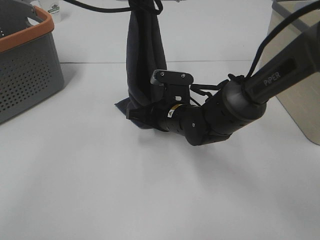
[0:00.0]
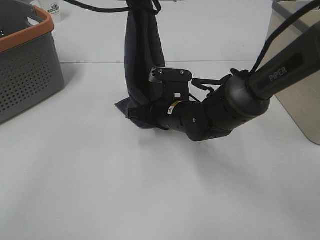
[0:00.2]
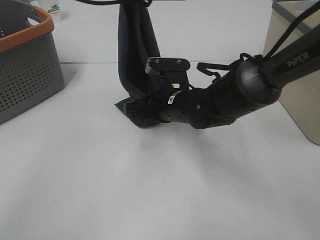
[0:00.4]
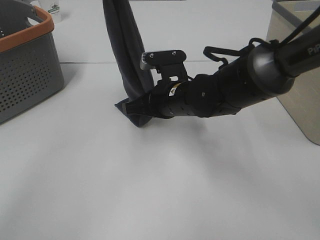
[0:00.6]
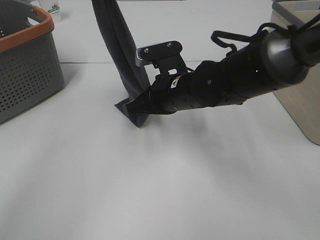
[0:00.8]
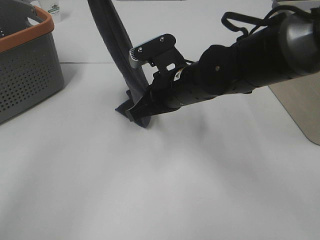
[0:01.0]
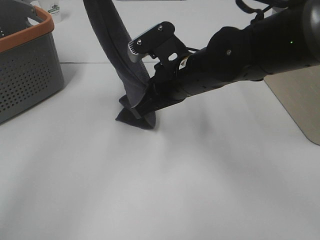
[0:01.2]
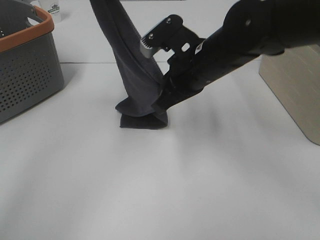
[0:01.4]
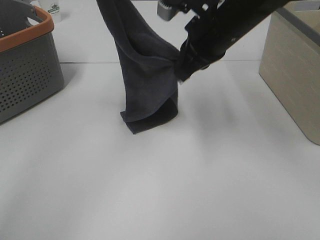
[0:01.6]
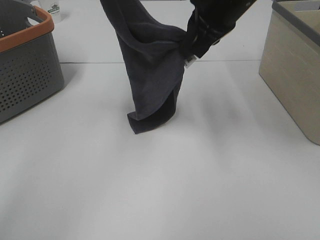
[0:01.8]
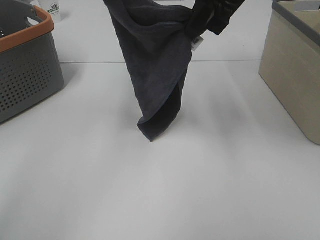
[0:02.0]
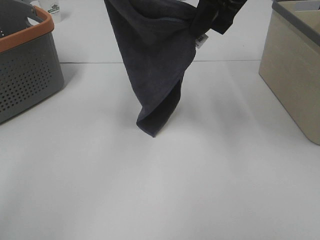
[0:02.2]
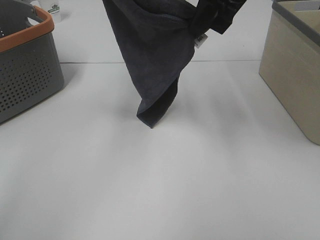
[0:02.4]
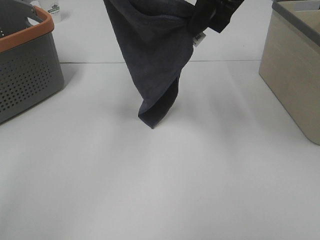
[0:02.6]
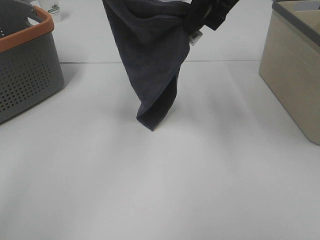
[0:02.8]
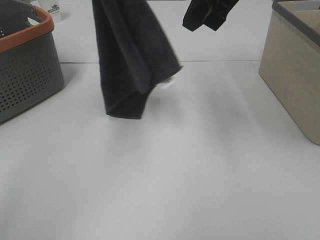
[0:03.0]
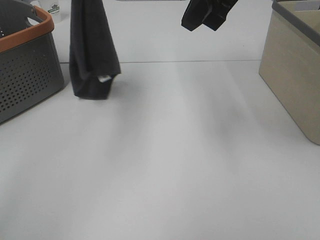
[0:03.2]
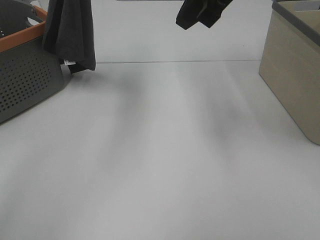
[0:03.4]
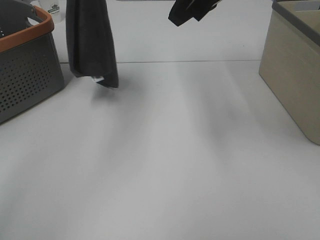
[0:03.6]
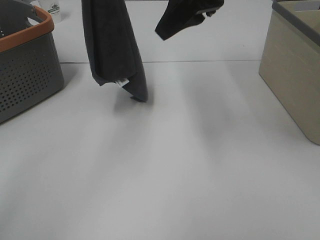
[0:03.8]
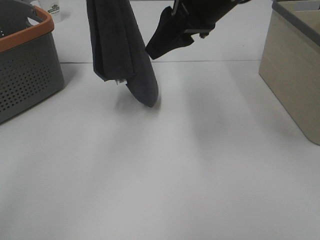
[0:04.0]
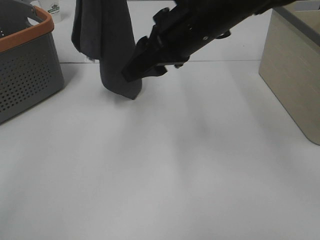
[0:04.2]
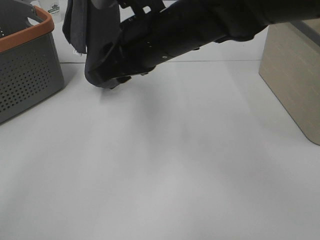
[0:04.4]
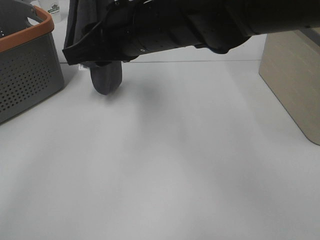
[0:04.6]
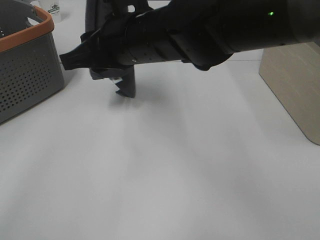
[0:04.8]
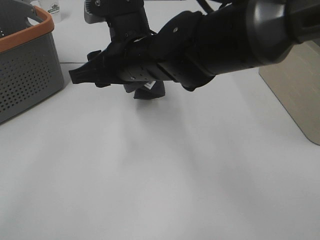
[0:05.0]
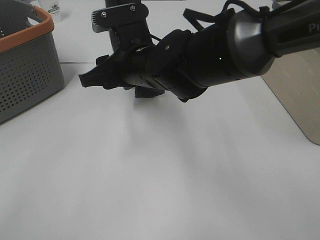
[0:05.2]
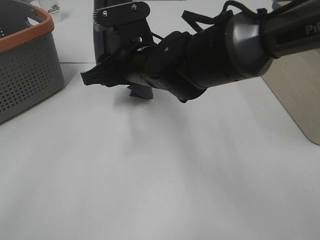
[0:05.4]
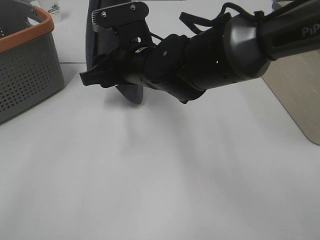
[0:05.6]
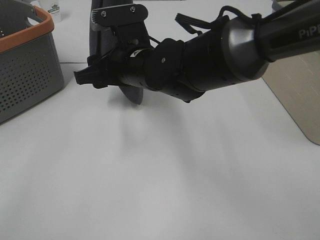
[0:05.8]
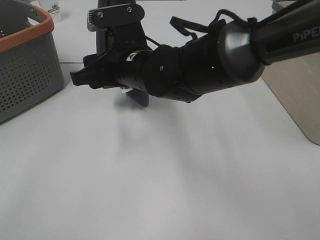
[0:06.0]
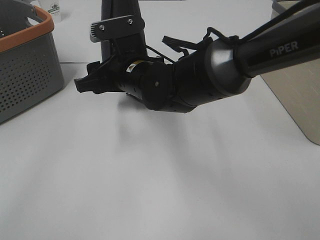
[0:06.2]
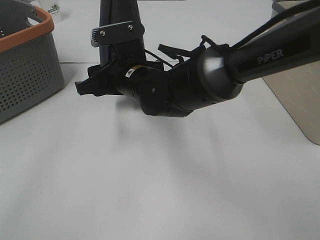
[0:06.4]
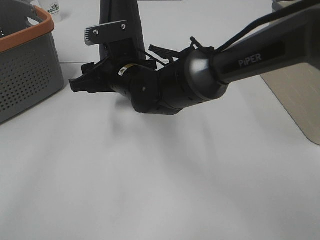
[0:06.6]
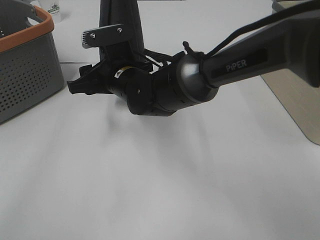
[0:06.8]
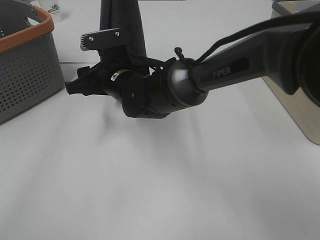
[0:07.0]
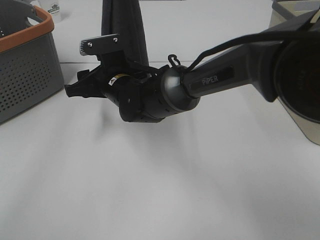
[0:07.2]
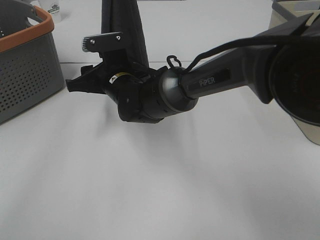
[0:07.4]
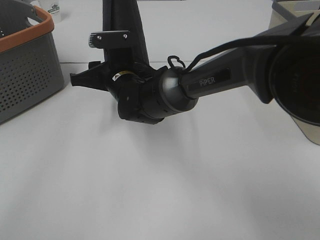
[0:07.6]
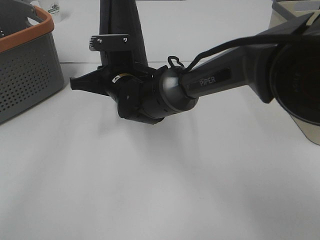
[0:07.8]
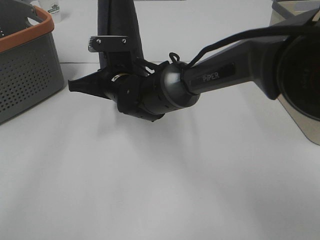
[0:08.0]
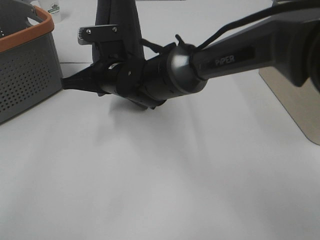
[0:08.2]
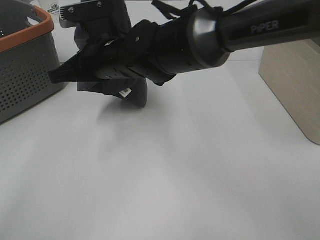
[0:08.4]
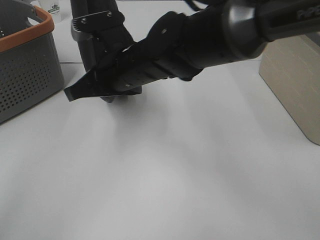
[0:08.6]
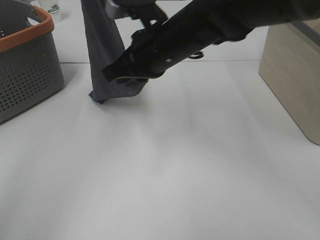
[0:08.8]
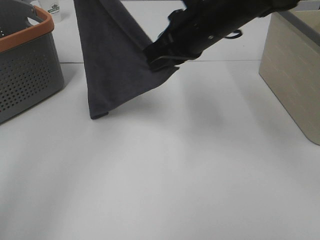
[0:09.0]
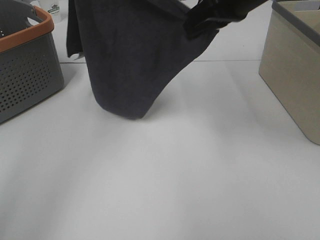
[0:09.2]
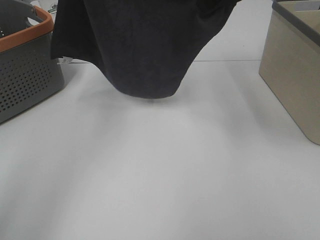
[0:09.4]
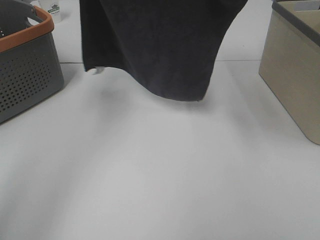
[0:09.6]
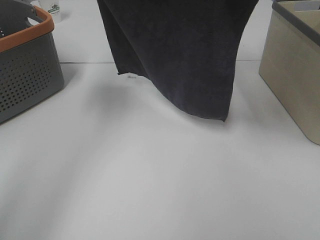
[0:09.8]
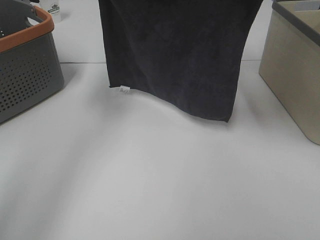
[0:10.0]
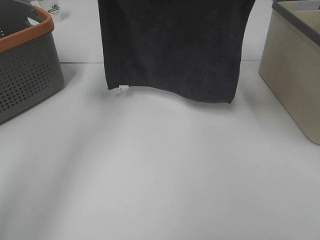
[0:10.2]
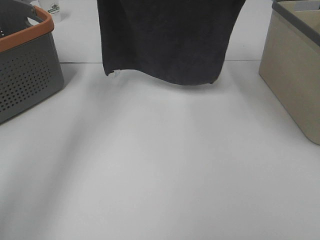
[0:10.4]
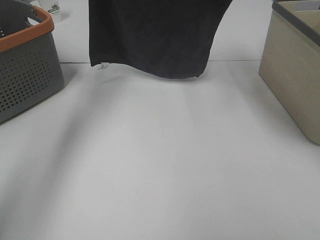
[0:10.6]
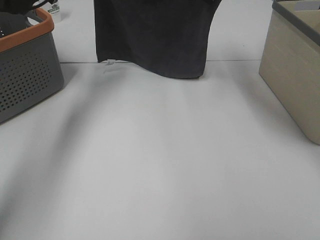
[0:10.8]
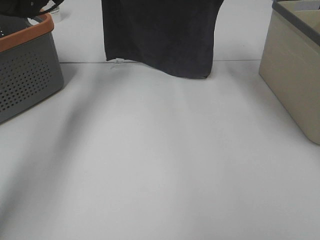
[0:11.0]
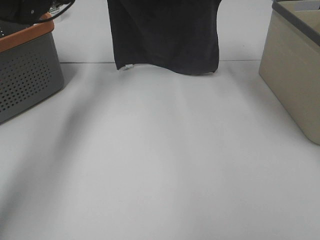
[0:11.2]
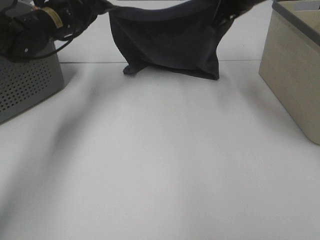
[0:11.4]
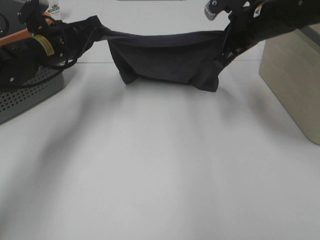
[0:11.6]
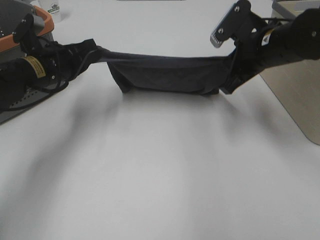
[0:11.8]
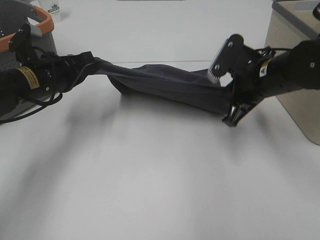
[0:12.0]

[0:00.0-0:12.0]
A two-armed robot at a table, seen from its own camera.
Task of the whole recording: Remove the towel and place it.
Step, 0:00.0 to 0:04.6: Right hand: grab a corner of the grey towel and straighten it.
Step, 0:04.8 to 0:07.4: Left hand: spread the grey towel flat on the table.
Step, 0:04.8 to 0:07.4: Right hand: spread the grey towel flat on the table.
0:00.0 to 0:01.6: The right gripper travels upward by some 20 cm. The left gripper is displaced to the left by about 10 cm.
0:01.6 to 0:03.0: The right gripper goes some 10 cm upward, while the left gripper heads upward, covering roughly 5 cm.
0:03.0 to 0:04.4: The right gripper goes about 15 cm to the left, downward and backward, and opens up.
0:04.4 to 0:06.0: The left gripper changes place by roughly 5 cm; the right gripper heads downward, covering some 5 cm.
0:06.0 to 0:07.6: The right gripper heads downward, covering approximately 5 cm.
0:07.6 to 0:09.0: The right gripper shifts roughly 20 cm to the right and upward, and closes up, while the left gripper is displaced to the left by roughly 10 cm.
0:09.0 to 0:10.4: The right gripper is displaced upward, to the right and forward by roughly 15 cm, while the left gripper goes some 10 cm downward.
0:10.4 to 0:12.0: Both grippers travel together downward and backward, about 20 cm.

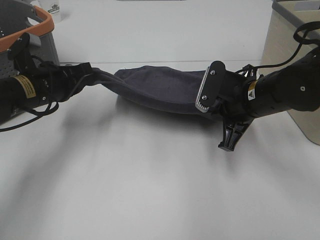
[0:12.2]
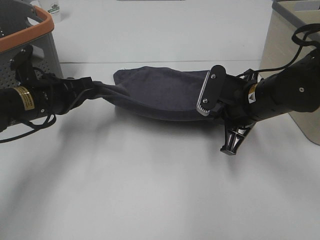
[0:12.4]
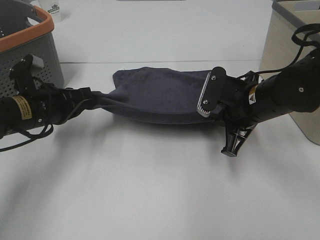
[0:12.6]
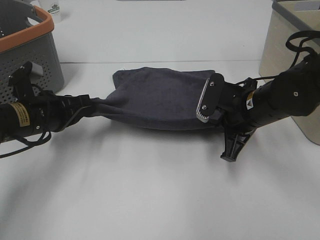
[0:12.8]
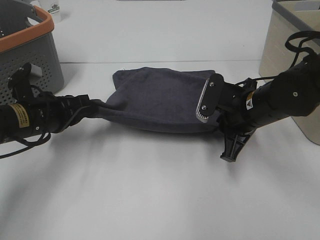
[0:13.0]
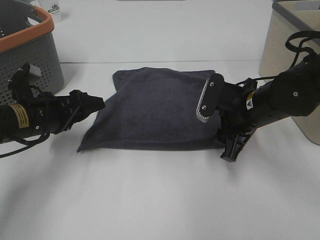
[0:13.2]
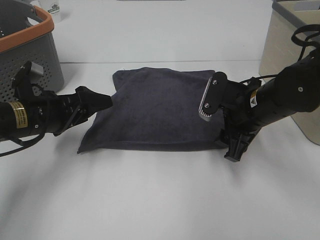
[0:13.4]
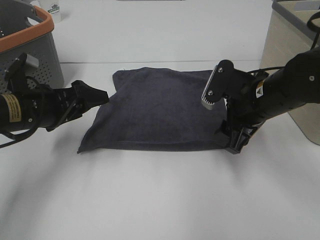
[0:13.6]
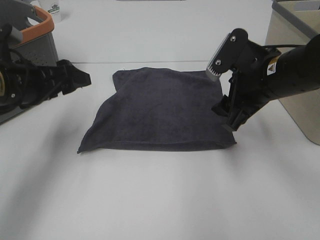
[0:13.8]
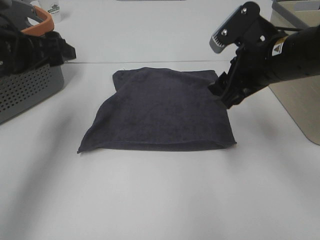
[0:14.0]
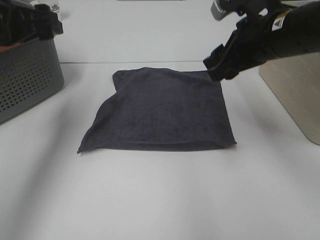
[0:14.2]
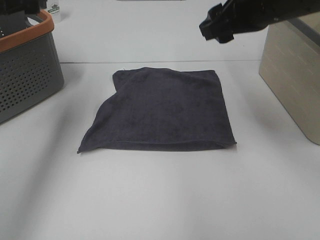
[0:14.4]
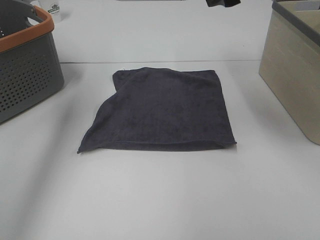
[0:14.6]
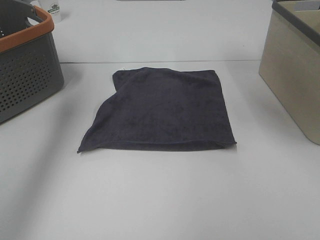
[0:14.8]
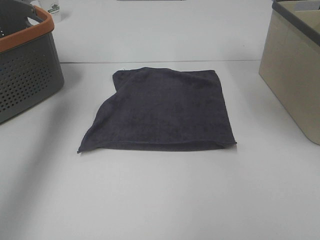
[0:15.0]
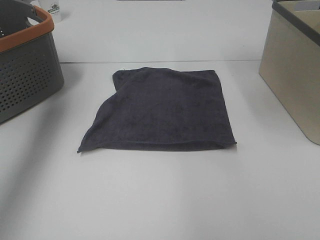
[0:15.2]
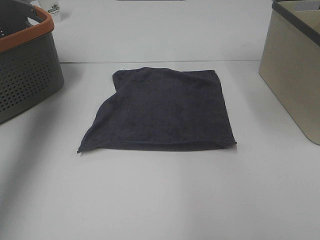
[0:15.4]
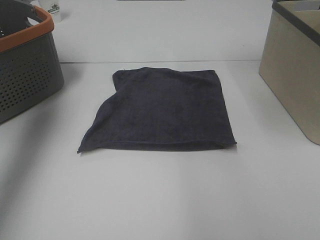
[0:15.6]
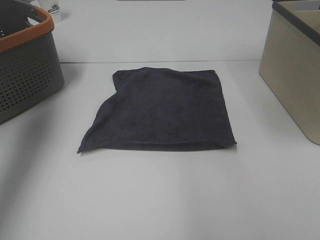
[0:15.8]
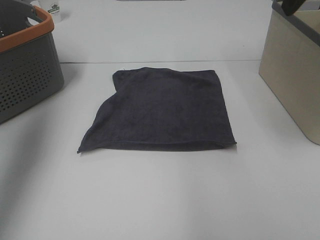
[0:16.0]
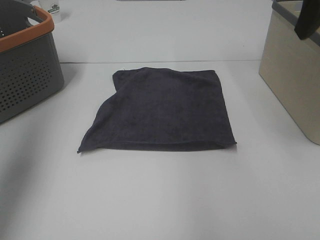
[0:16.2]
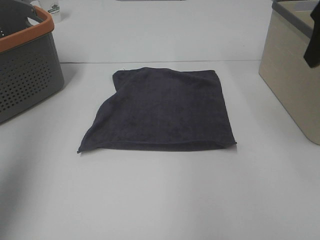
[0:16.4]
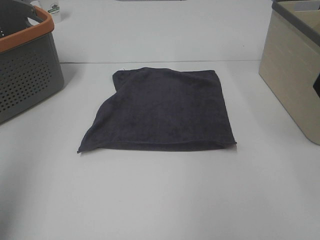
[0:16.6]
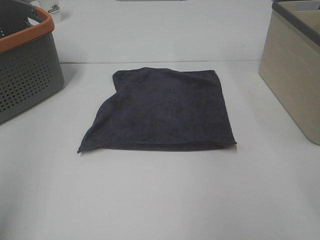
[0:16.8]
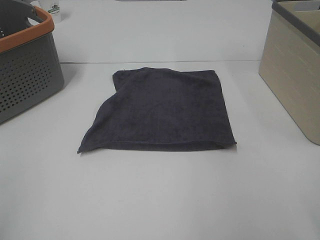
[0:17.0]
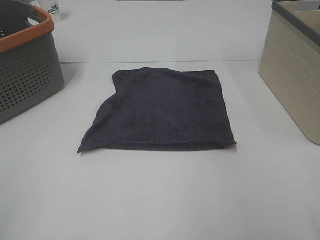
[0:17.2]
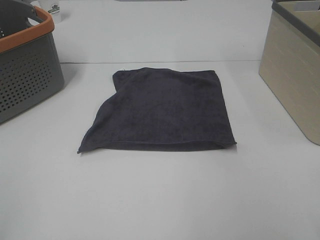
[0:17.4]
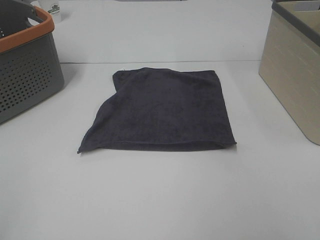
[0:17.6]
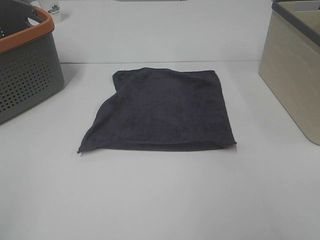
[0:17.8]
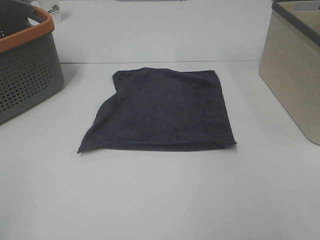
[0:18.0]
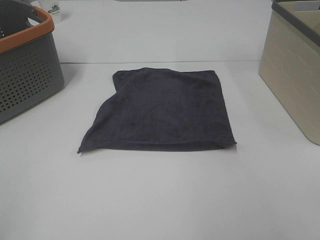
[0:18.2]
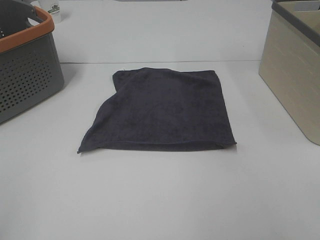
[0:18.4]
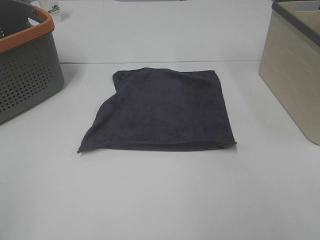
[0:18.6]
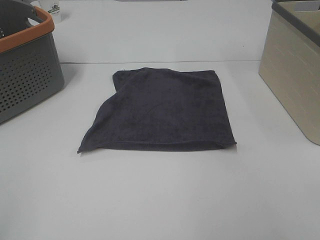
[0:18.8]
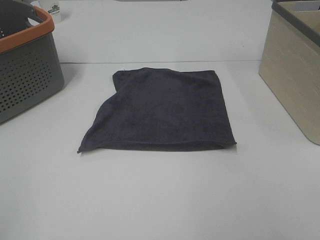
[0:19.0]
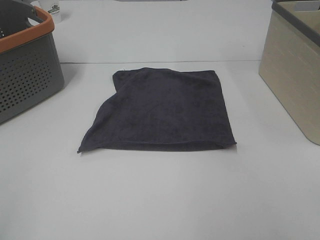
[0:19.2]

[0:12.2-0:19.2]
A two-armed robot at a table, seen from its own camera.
Task of the whole recording: Remove the towel and place it.
0:12.2 to 0:13.6: The left gripper opens; the right gripper opens its fingers.
0:13.6 to 0:15.0: The two grippers go about 20 cm upward.
0:15.0 to 0:16.4: The left gripper goes some 20 cm backward, while the right gripper shifts about 15 cm backward and to the right.
0:16.4 to 0:17.8: The right gripper is displaced backward by some 25 cm. Meanwhile the left gripper goes approximately 20 cm backward and downward.

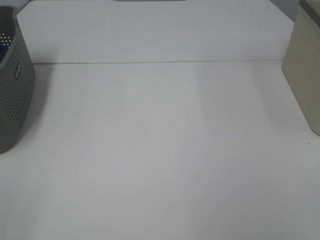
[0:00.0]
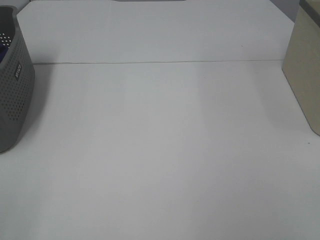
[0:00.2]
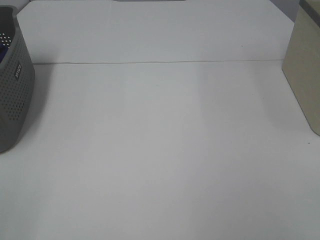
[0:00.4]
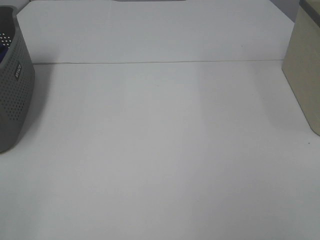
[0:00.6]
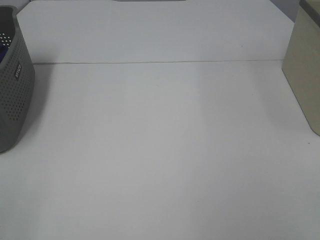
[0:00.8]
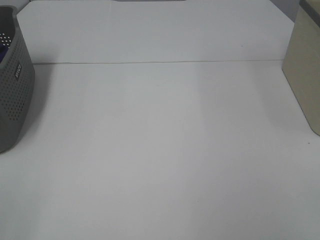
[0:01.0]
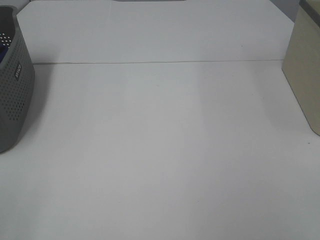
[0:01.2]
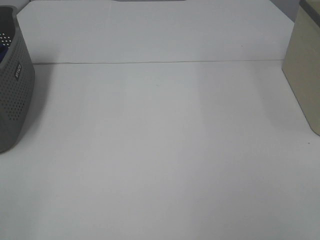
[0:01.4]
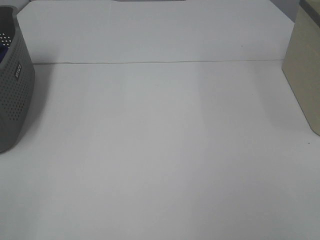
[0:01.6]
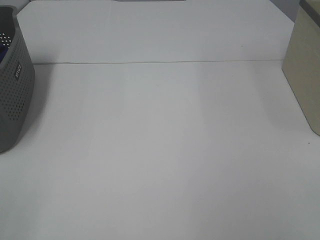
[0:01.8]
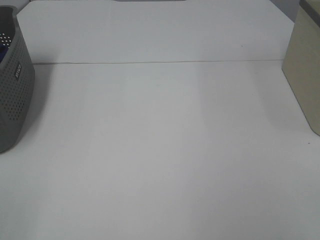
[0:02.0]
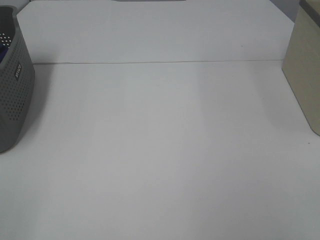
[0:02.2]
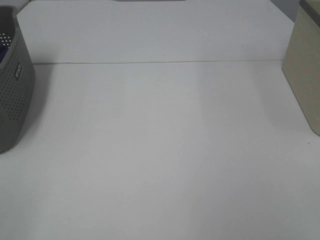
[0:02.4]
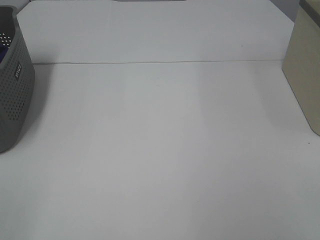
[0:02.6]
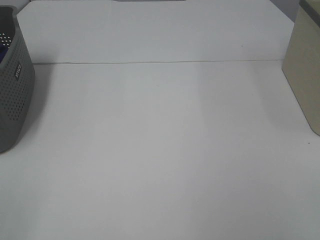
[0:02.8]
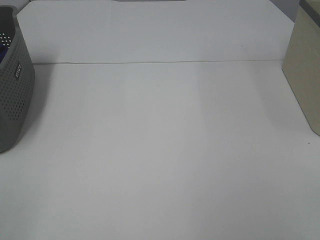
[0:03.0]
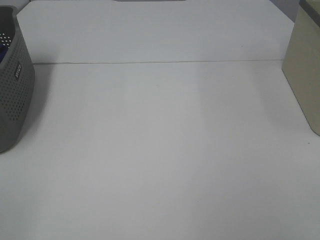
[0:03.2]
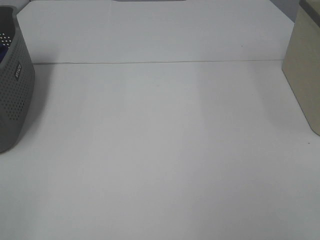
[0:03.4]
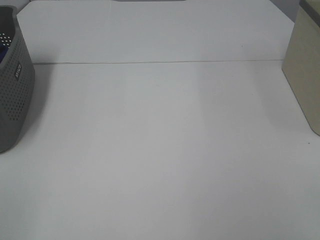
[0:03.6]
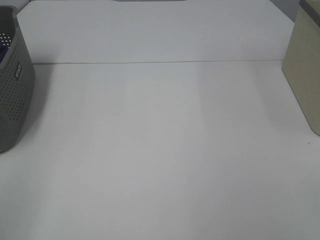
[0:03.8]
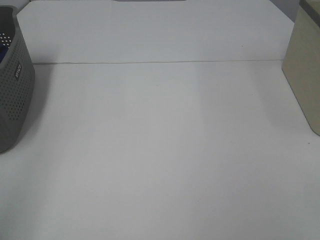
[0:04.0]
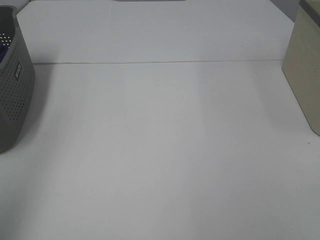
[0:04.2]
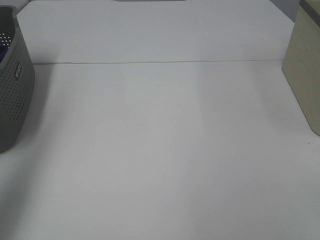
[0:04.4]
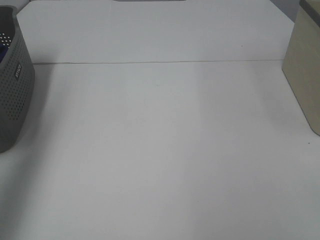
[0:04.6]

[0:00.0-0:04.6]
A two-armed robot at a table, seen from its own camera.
Task of the whole recording: Remove the towel and place it.
0:00.0 to 0:03.0: Neither gripper changes place.
0:03.0 to 0:04.6: The left gripper moves forward and upward, approximately 25 cm.
